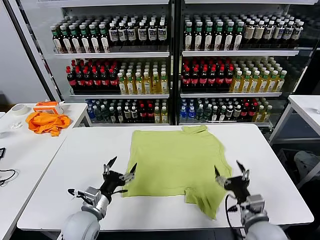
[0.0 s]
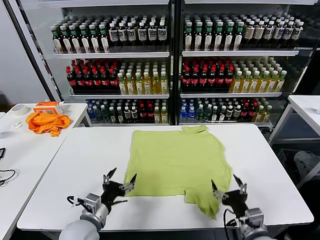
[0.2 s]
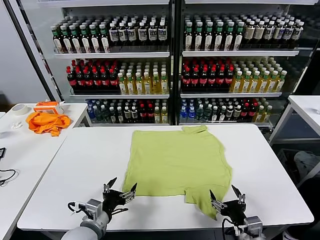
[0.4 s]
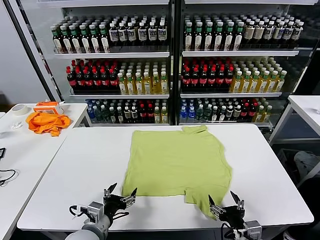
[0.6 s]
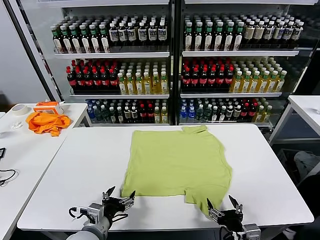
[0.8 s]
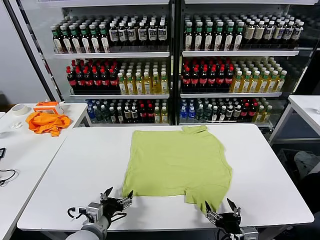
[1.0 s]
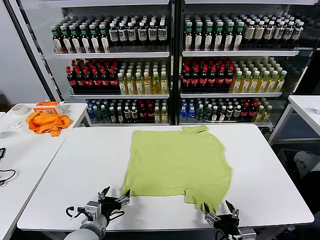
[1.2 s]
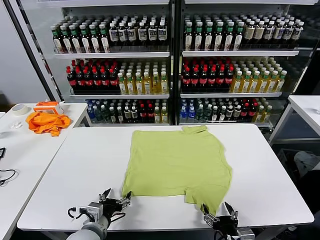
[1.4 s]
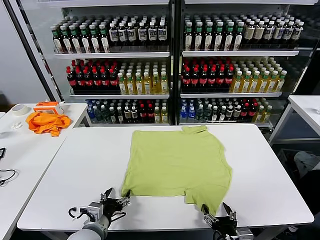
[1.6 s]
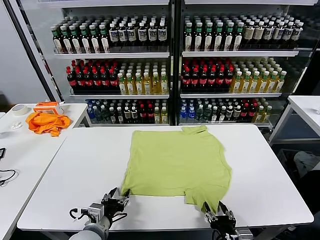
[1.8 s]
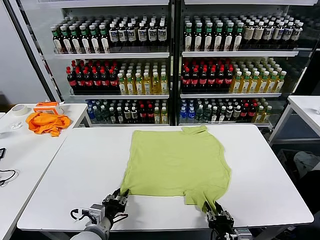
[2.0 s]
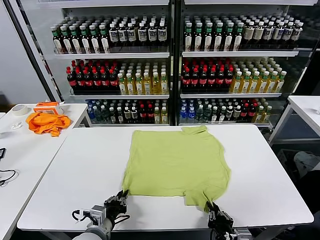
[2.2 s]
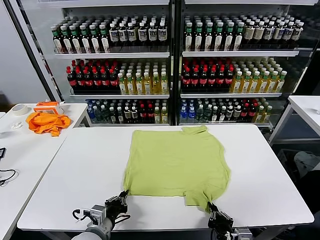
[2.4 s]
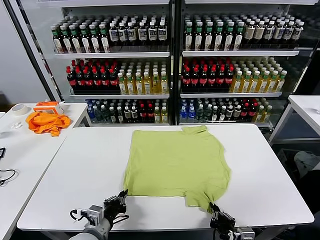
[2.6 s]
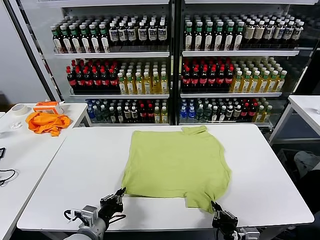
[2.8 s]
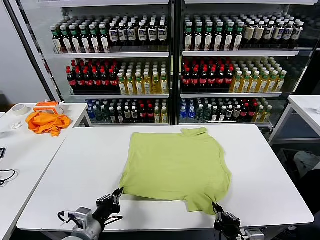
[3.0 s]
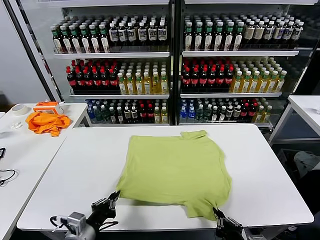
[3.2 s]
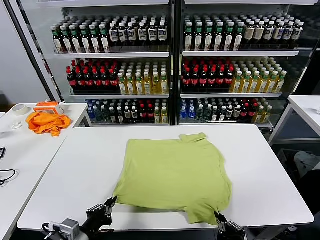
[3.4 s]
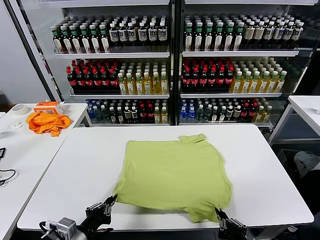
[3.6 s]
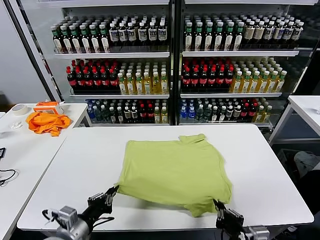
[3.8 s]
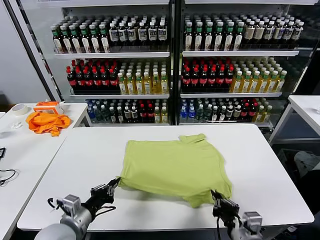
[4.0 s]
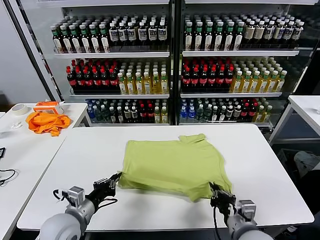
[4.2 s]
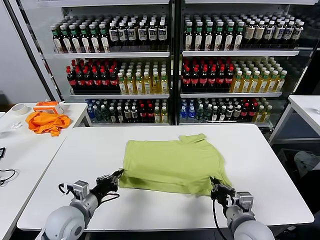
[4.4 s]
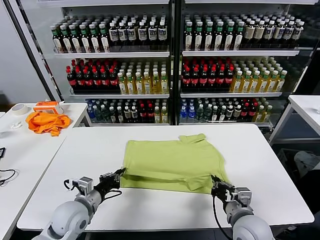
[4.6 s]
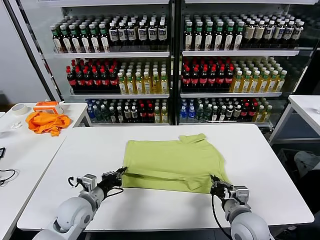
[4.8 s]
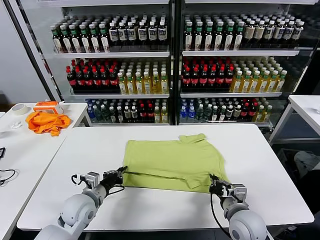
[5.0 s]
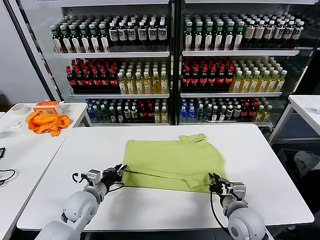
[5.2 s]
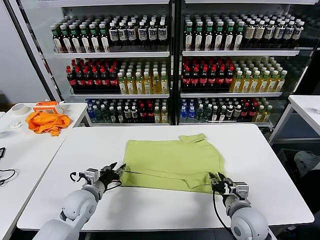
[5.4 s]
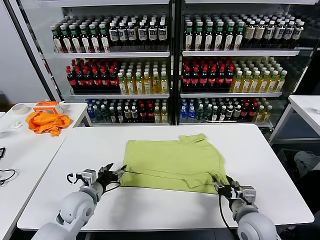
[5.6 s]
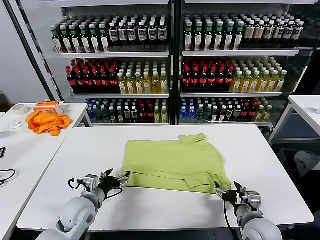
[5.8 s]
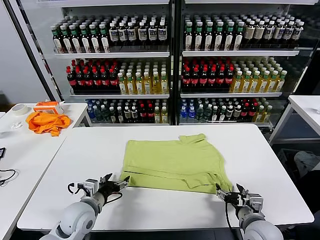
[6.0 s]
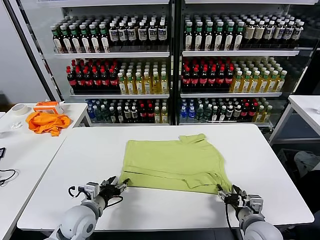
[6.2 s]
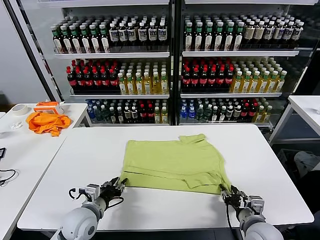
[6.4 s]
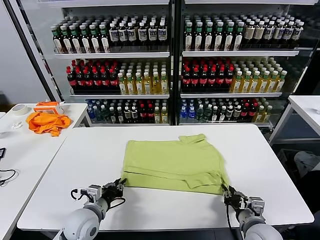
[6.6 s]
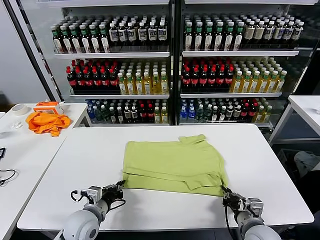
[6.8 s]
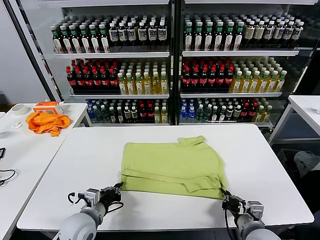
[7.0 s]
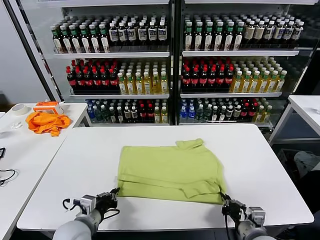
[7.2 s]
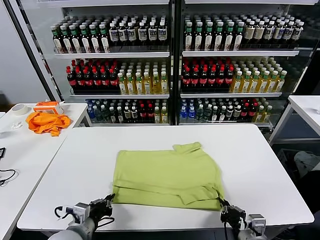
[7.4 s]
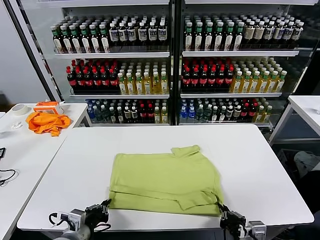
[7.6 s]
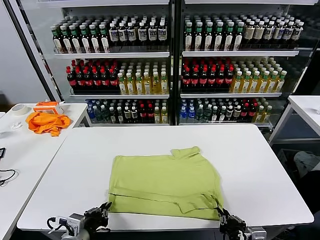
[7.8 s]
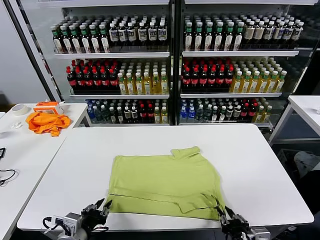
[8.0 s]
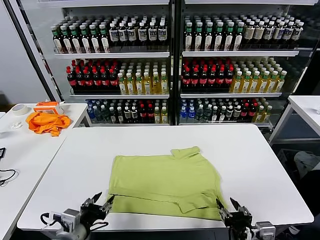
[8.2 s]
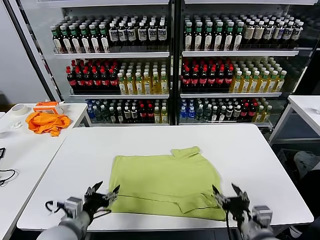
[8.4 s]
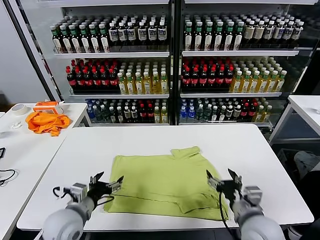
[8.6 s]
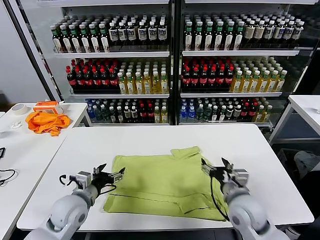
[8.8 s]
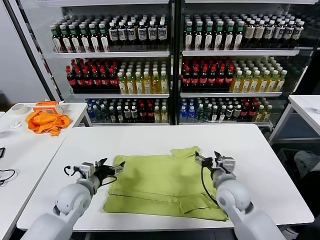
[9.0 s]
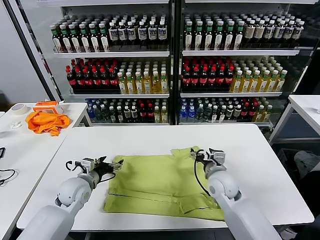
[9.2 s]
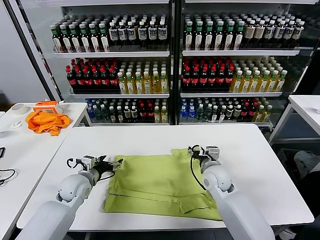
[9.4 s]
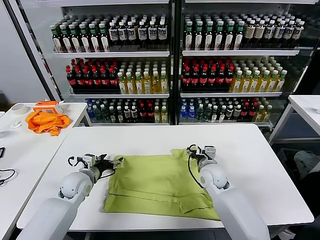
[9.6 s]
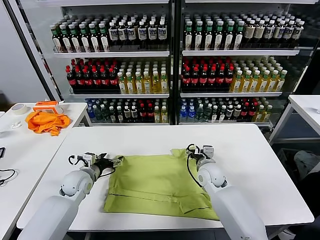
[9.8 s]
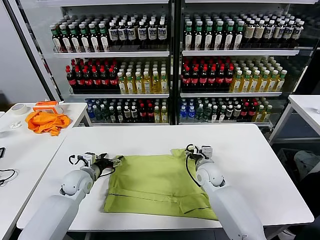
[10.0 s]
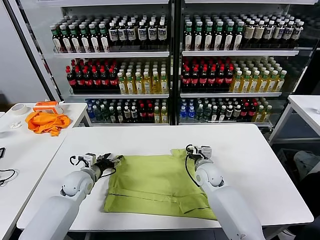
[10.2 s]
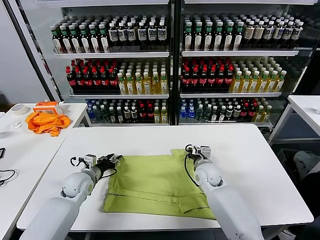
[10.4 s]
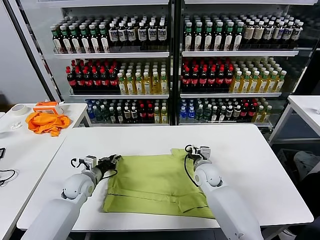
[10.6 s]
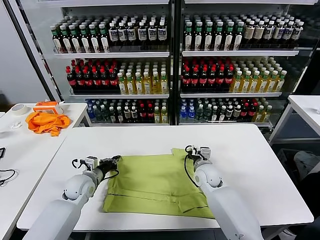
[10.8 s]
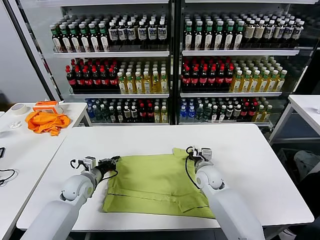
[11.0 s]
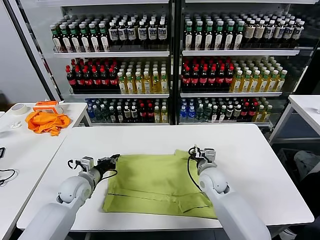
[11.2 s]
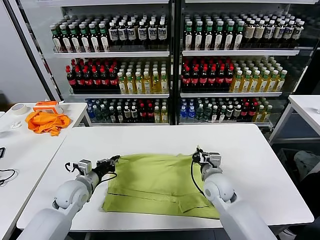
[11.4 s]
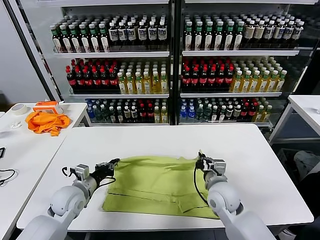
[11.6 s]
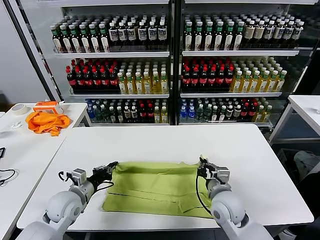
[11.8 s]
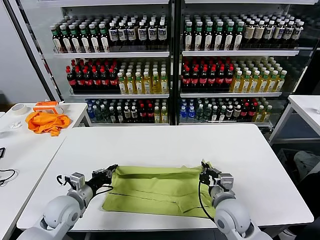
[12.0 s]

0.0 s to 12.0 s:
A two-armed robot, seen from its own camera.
Task of the whole recording: fold and organize the clothes.
Step, 0.0 to 2.2 s: use both grippers simultaneously to clamp the lower edge of the clothing fabric.
Step, 2.4 to 5.4 s: use both grippers to drag the lower edge of the fabric forward and fold it over the upper edge.
Step, 5.6 to 8.0 s: Drag the clothes downward with both gripper.
Step, 8.2 to 10.8 s: use both grippers simultaneously to clamp the upper edge of the clothing fabric.
1.6 to 3.0 s: The right gripper goes approximately 5 cm upward, and closes, while the left gripper closes.
3.0 to 4.4 s: Both grippers travel together forward, roughly 10 cm.
4.4 to 6.0 s: The right gripper shifts by some 5 cm, and opens its fingers. Meanwhile the left gripper opens up.
6.0 to 7.6 s: Both grippers travel together backward, some 10 cm. The right gripper closes its fingers. Meanwhile the left gripper closes up.
7.6 to 9.0 s: The grippers both shift forward by approximately 20 cm. The right gripper opens up; the left gripper opens.
9.0 to 10.4 s: The left gripper goes some 5 cm forward, and closes its fingers. Meanwhile the right gripper shifts about 10 cm forward and downward, and closes its fingers.
10.4 to 12.0 s: The right gripper goes some 15 cm backward, and closes up. Meanwhile the left gripper is displaced backward by approximately 10 cm, and closes up.

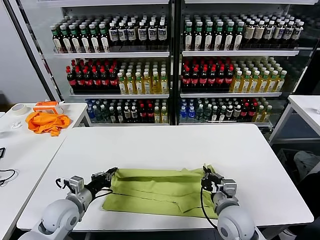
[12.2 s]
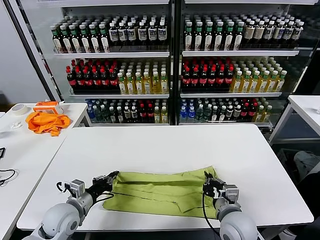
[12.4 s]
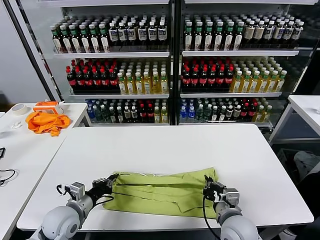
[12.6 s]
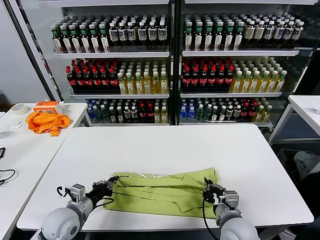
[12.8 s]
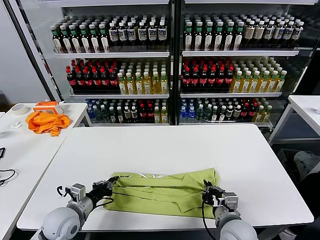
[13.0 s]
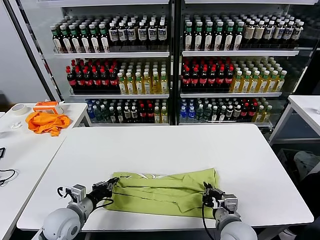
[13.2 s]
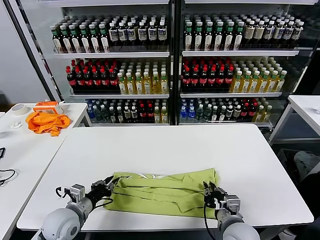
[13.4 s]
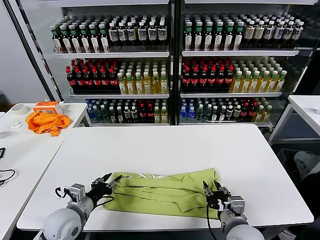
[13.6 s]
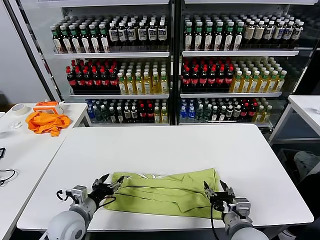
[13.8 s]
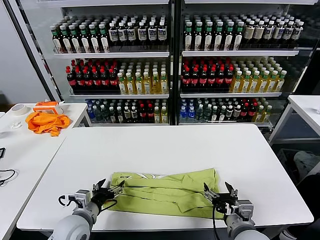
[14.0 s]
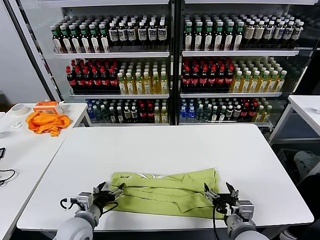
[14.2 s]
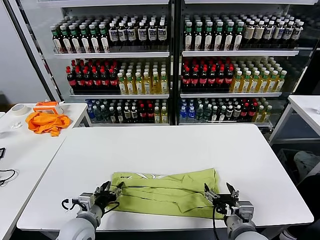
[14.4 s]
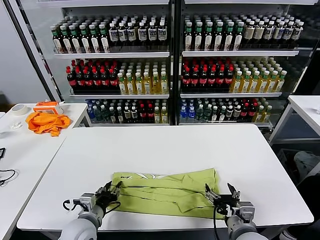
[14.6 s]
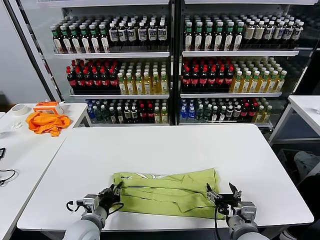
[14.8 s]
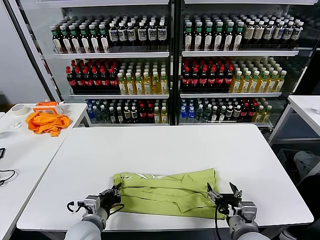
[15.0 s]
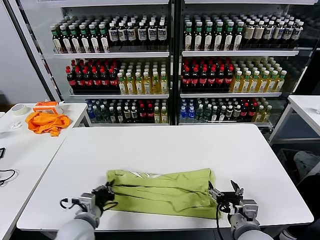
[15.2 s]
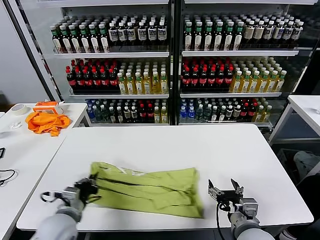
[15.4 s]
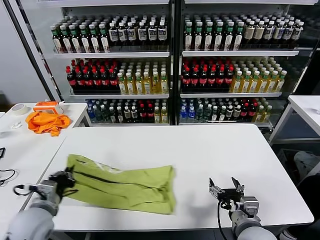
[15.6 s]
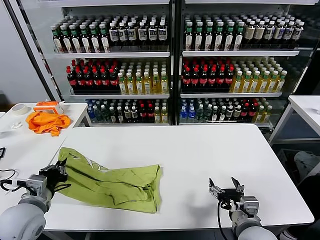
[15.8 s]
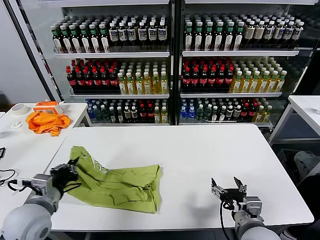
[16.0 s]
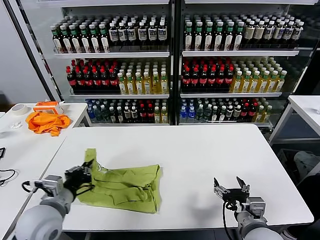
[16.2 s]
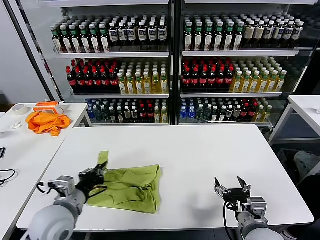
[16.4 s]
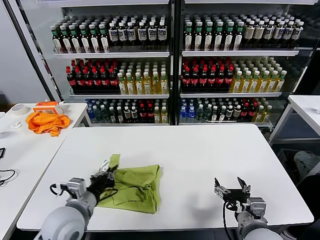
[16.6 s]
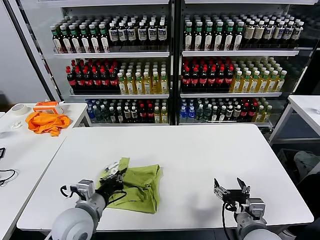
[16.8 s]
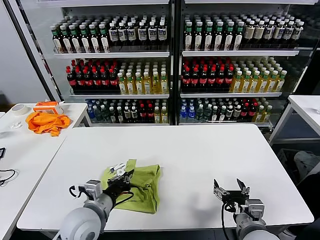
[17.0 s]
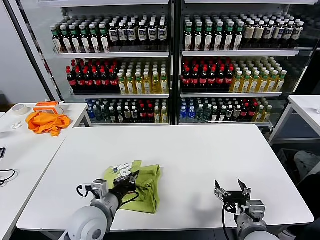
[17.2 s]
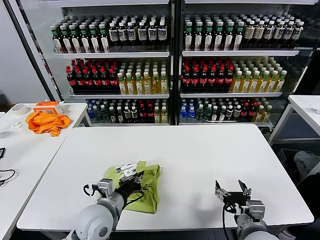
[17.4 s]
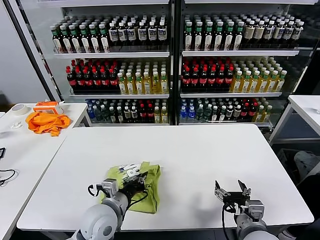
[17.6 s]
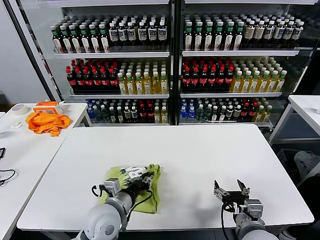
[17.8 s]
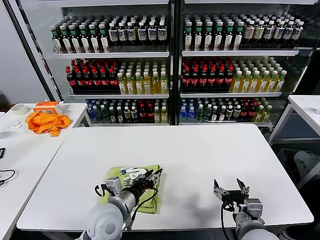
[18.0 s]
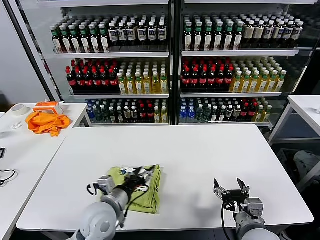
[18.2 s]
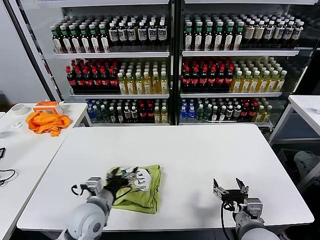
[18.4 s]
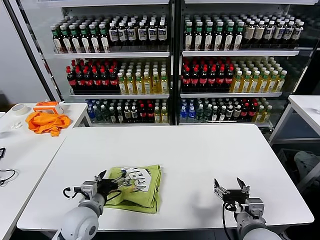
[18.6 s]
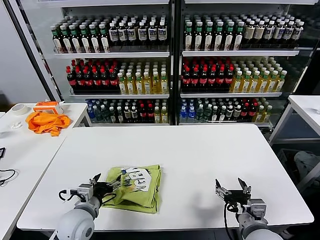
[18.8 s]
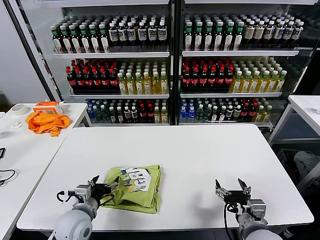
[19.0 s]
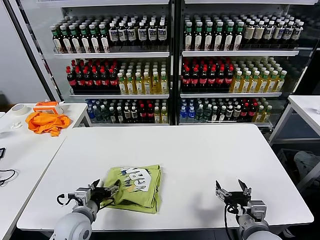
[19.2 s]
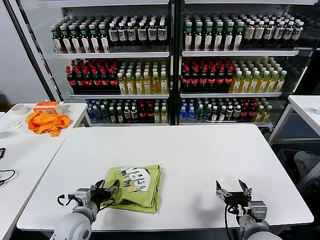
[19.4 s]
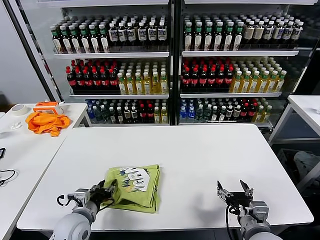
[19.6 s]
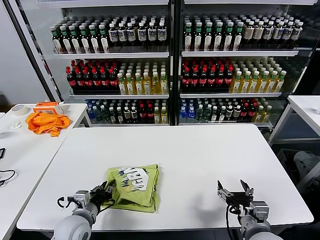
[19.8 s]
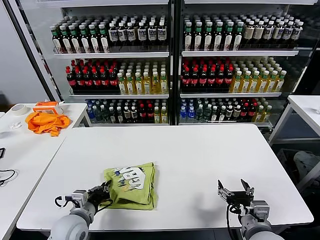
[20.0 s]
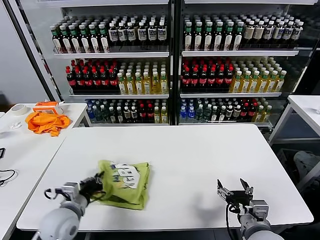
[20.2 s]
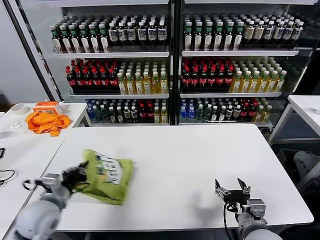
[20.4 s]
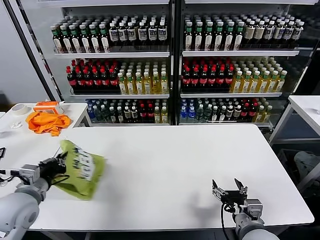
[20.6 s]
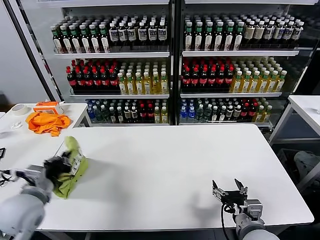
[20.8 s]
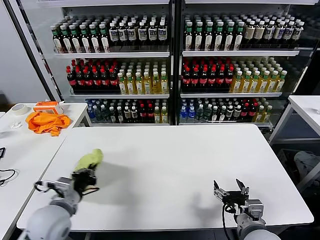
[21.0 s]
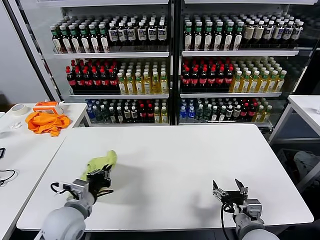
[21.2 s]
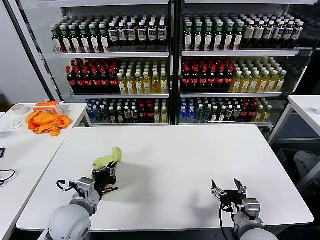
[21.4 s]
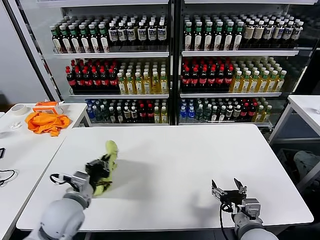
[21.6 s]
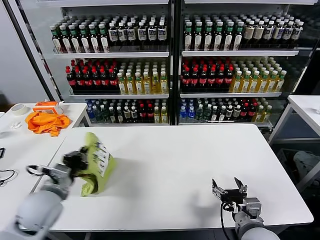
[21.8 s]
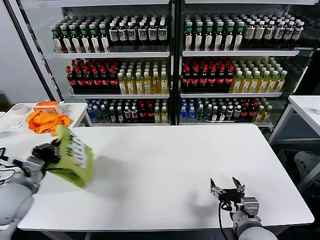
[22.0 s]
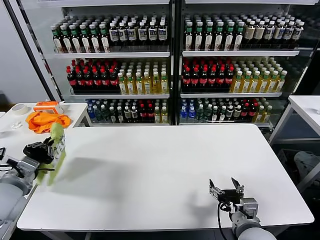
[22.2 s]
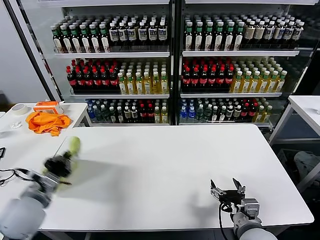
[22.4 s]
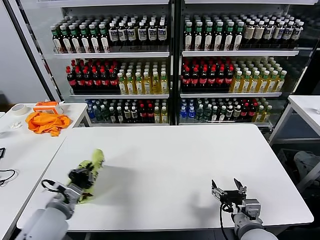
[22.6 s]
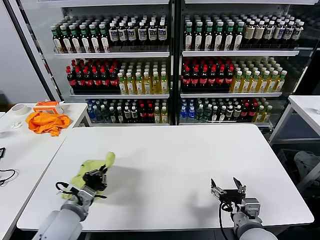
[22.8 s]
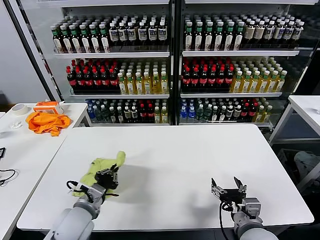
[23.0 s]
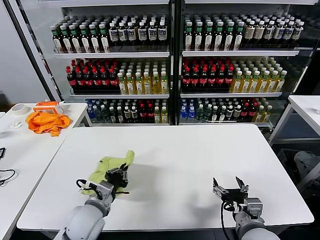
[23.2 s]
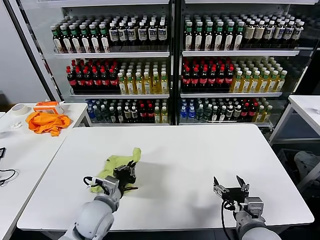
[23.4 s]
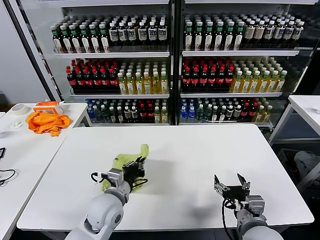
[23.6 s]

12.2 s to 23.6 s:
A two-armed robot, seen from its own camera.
Task of the whole recording: fold and organize the clothes.
Step, 12.2 to 13.6 s: use both grippers to drag the upper edge of the fabric backward and fold it over the lower edge.
Step, 13.8 to 15.0 s: use the left gripper to clamp the left edge of the fabric.
Step, 15.2 to 18.0 s: use the left gripper to drag the left edge of the fabric to the left and folds it over the right edge.
12.2 to 13.6 s: The right gripper opens; the left gripper opens up.
13.6 to 15.0 s: The right gripper opens up. The left gripper heads to the right, covering some 5 cm, and closes its fingers.
15.0 to 16.4 s: The left gripper is displaced upward by approximately 10 cm.
16.4 to 17.8 s: The left gripper is displaced to the right by some 10 cm.
17.8 to 19.4 s: The left gripper goes roughly 10 cm to the left and downward, and opens its fingers.
19.4 to 20.8 s: The left gripper moves upward and to the left, roughly 15 cm, and closes up.
20.8 to 22.2 s: The left gripper reaches roughly 10 cm to the right, then returns.
22.2 to 23.6 s: The left gripper goes roughly 25 cm to the right and downward.
